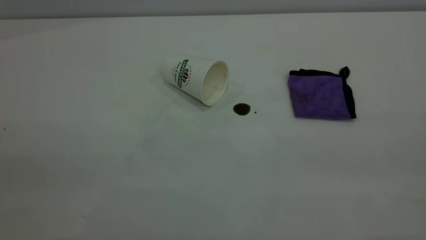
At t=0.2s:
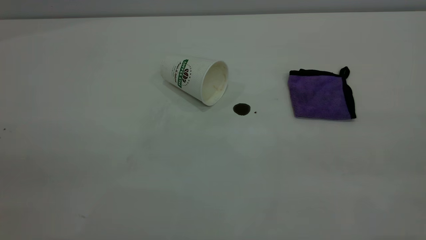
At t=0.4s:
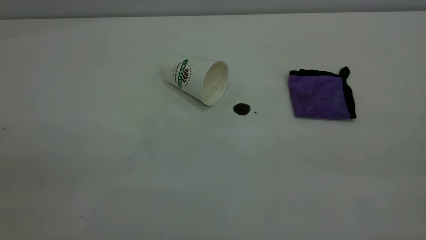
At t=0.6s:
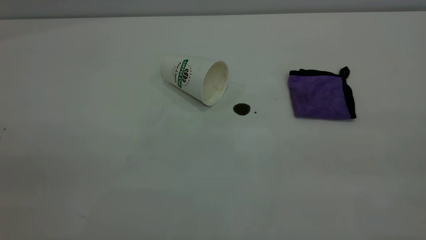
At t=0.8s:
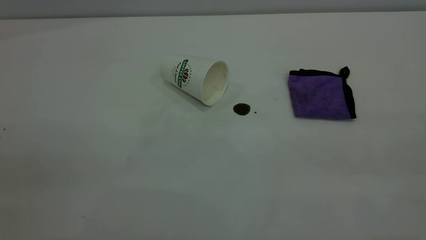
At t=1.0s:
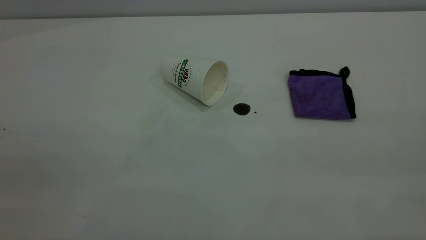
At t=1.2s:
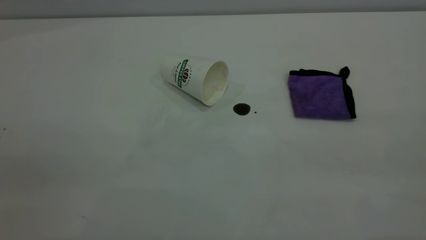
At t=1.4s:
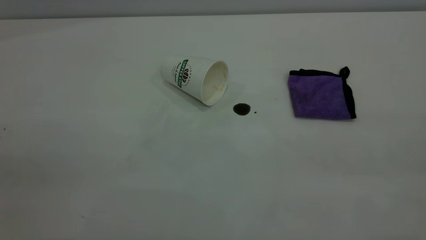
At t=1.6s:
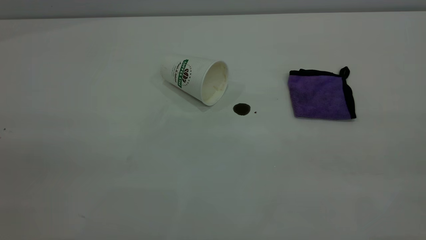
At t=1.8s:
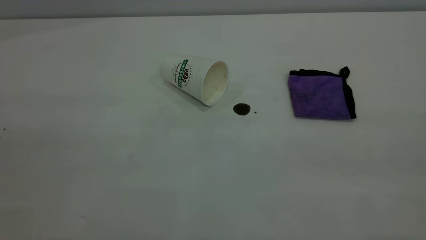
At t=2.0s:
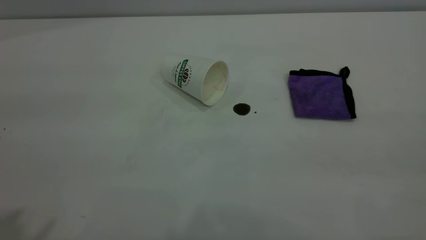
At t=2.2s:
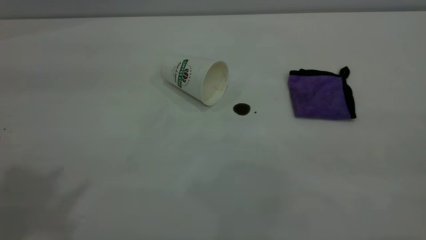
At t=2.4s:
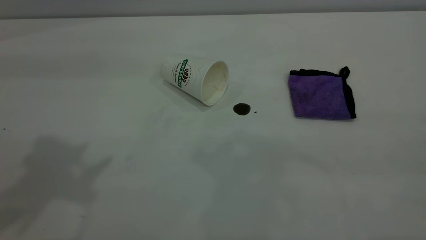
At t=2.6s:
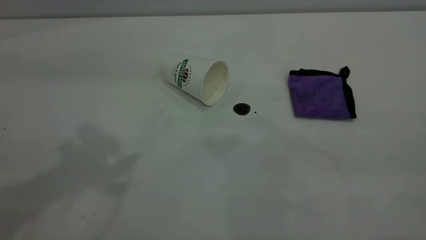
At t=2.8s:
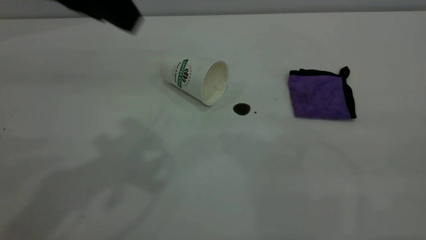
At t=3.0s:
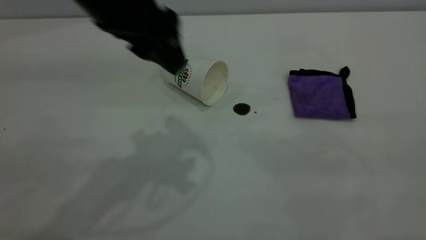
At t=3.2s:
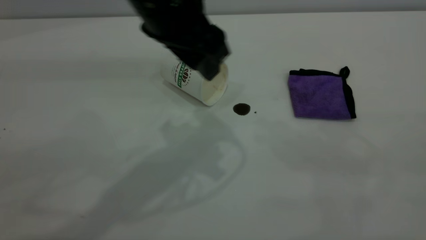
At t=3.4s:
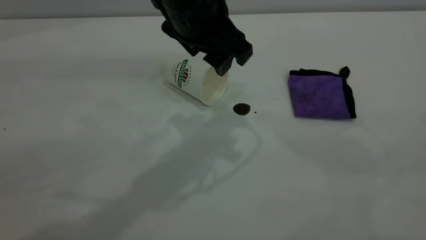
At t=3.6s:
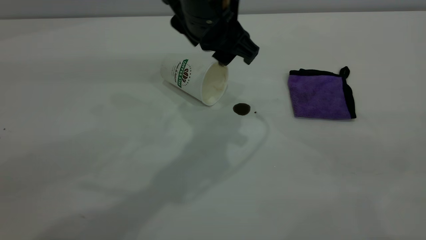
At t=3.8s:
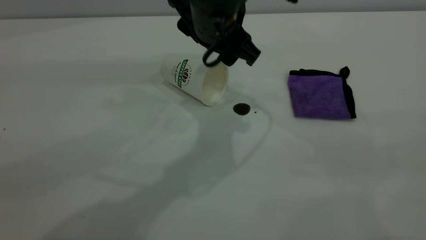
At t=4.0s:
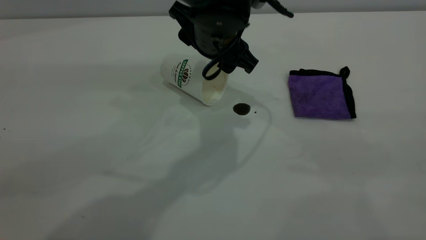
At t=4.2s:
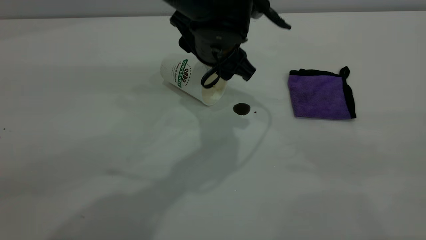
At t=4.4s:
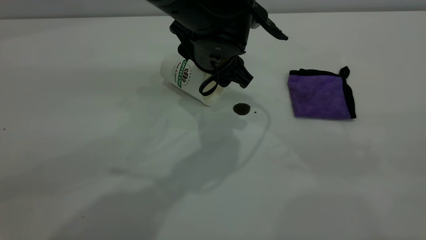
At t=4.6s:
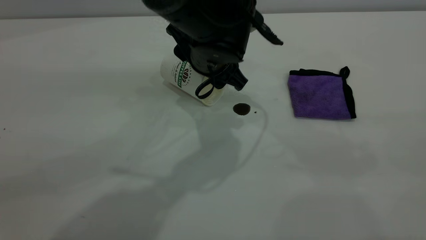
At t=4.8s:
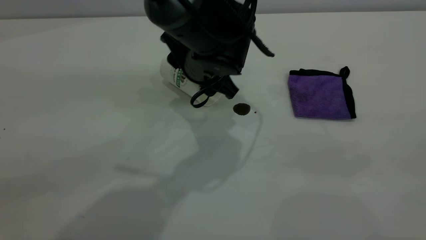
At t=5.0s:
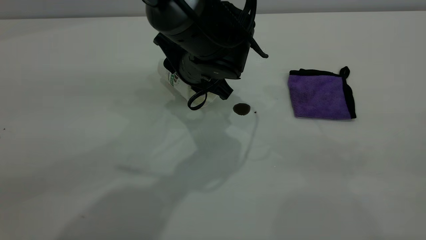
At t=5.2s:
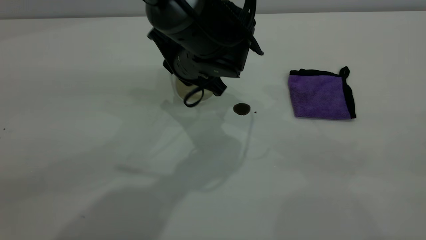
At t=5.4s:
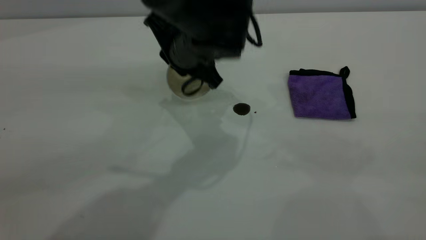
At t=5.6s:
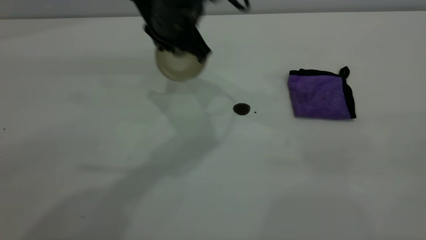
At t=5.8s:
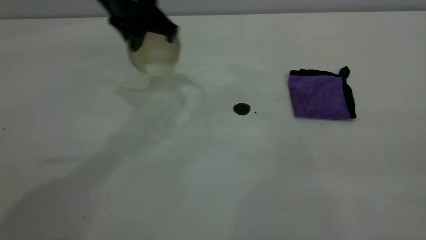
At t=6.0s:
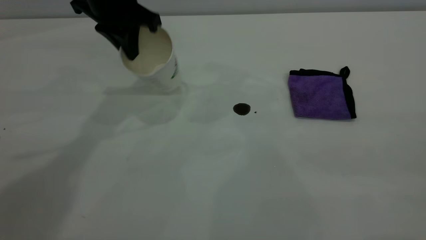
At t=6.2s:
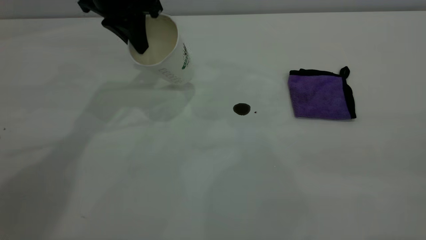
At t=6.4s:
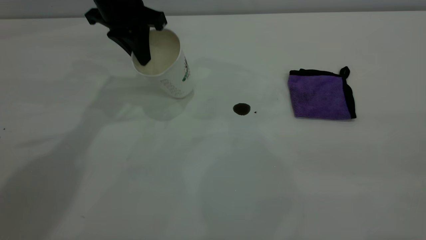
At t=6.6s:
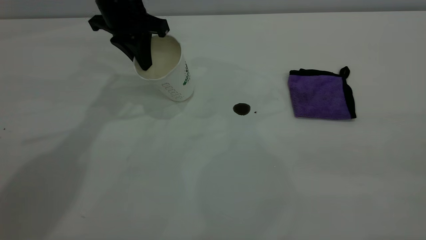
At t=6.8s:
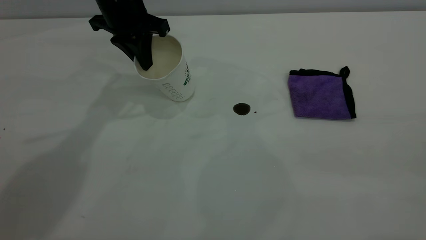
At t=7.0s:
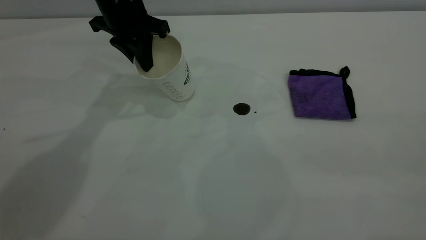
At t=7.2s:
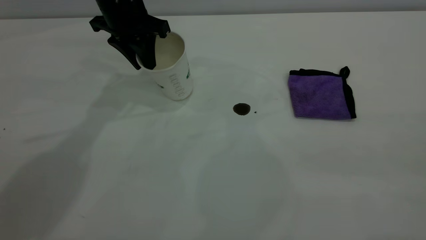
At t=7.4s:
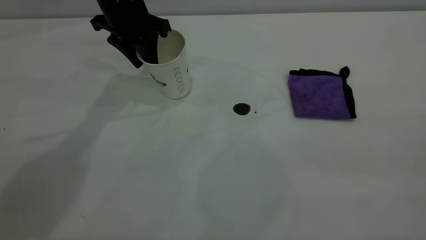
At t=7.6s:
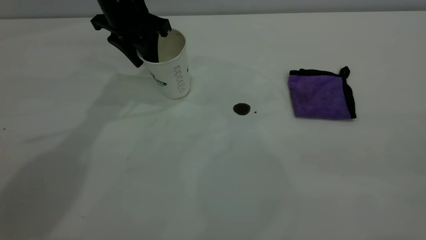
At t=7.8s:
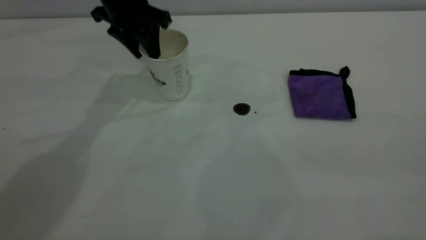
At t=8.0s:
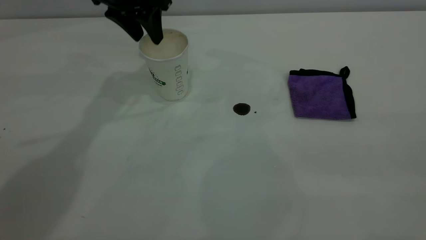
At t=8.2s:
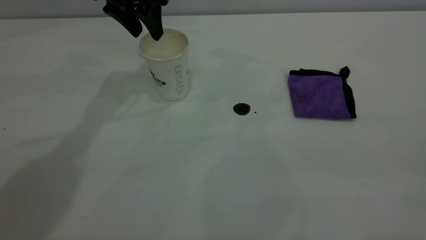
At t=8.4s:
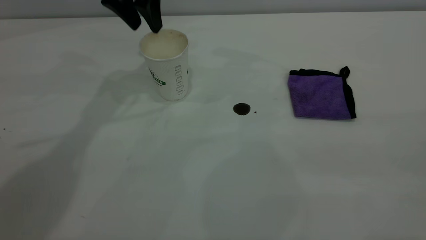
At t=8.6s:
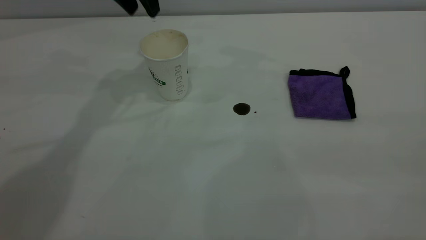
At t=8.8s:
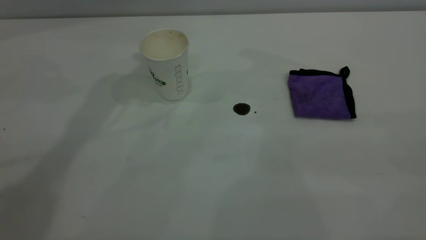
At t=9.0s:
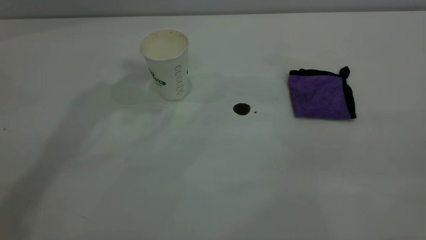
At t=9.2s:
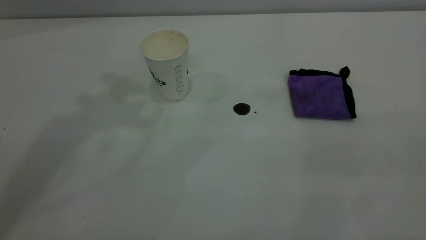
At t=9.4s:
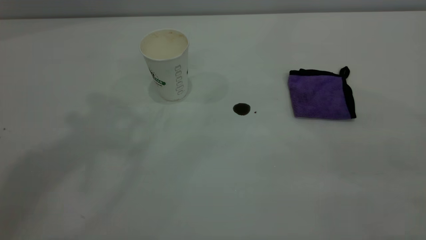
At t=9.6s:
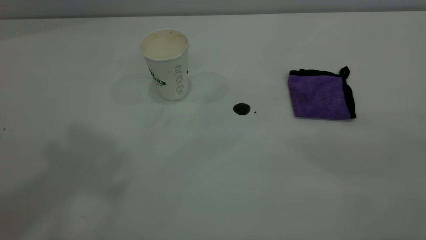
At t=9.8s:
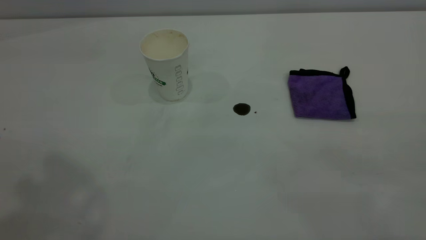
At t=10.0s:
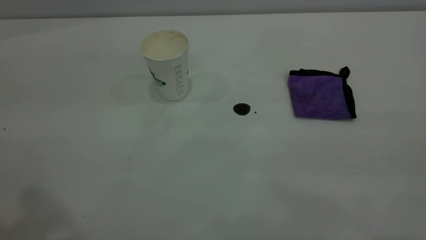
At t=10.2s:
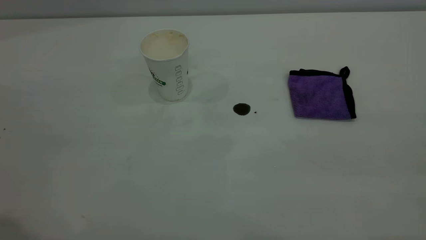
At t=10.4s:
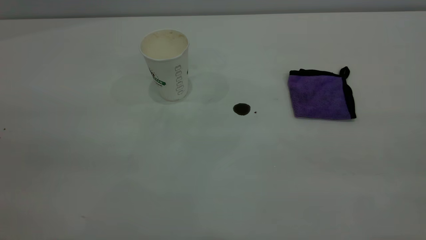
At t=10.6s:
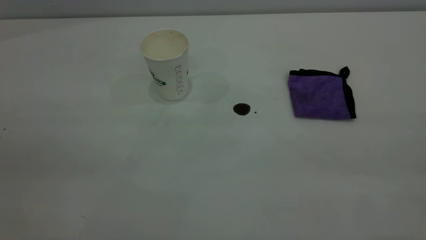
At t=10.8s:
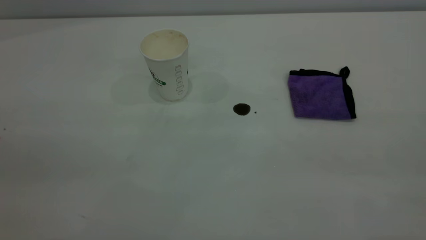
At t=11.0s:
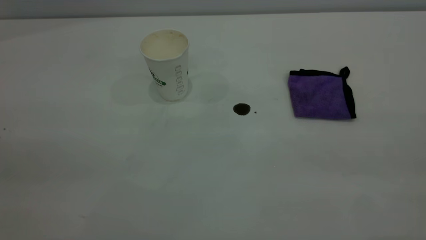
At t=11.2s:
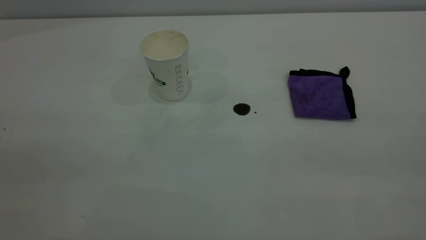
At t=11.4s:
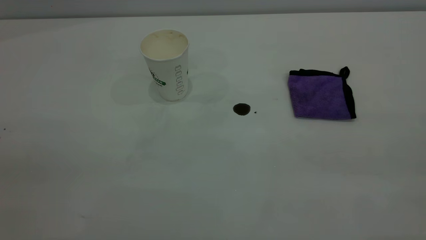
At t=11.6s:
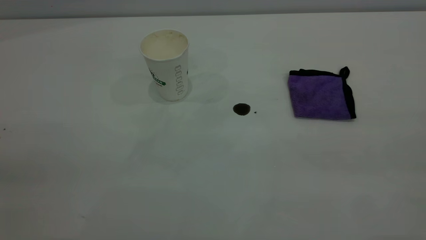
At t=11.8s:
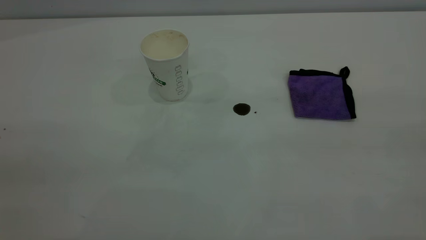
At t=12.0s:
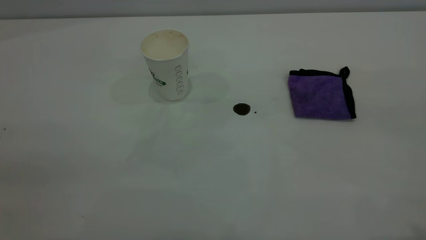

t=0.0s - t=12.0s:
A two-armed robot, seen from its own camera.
Task of the whole recording: the left gripper pick up the fallen cup and place it upright, the right gripper grasp the purple rag and wipe the coffee stain on the table, the right gripper put the purple rag back in its original position.
Step, t=0.0s - t=8.4s: Stand the paper cup upright.
t=1.6s - t=3.0s: The left gripper is displaced forward, to the right and downward by roughly 35 cm.
t=3.0s - t=4.4s: The left gripper moves downward, to the right and forward, roughly 20 cm.
t=4.4s - t=6.0s: The left gripper travels to the left, upward and forward by about 20 cm, and closes up.
t=6.0s - t=7.6s: The left gripper changes place by some 5 cm, and opens up.
t=7.6s - t=9.0s: The left gripper heads upward, covering roughly 25 cm.

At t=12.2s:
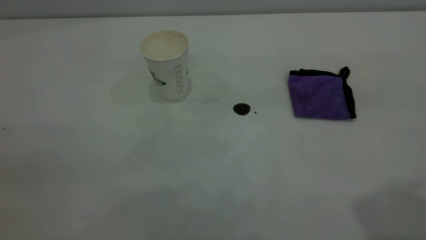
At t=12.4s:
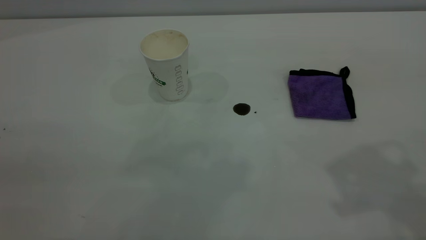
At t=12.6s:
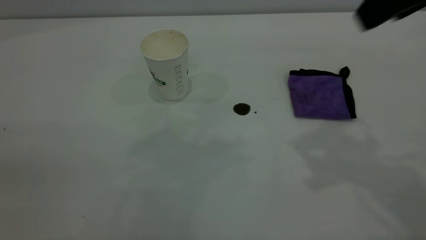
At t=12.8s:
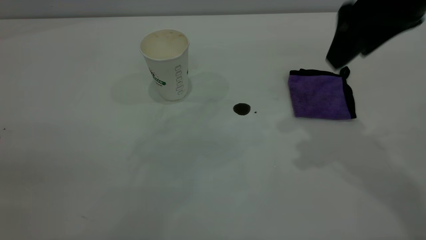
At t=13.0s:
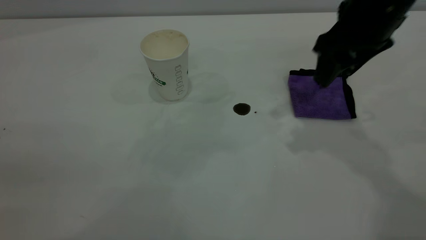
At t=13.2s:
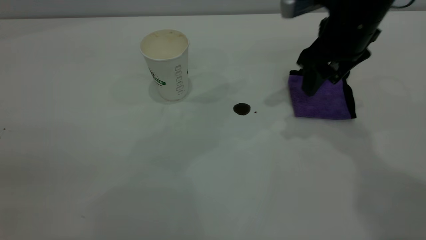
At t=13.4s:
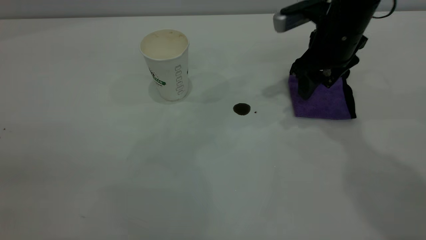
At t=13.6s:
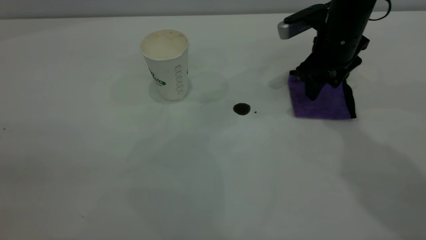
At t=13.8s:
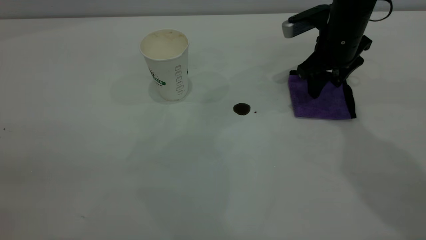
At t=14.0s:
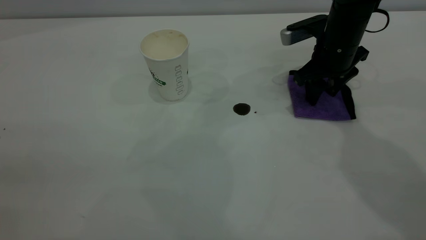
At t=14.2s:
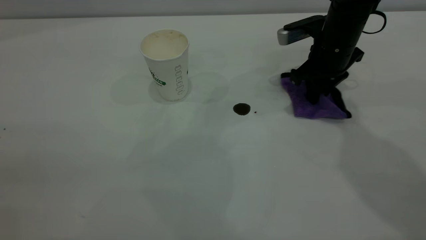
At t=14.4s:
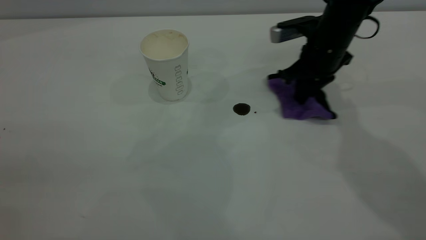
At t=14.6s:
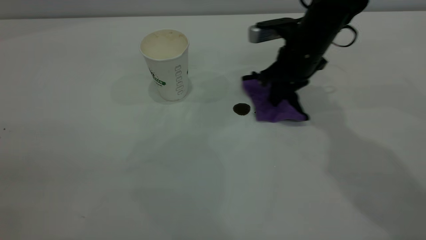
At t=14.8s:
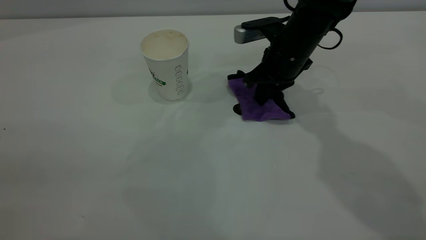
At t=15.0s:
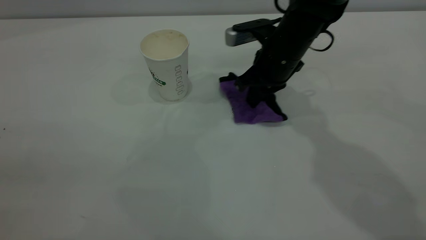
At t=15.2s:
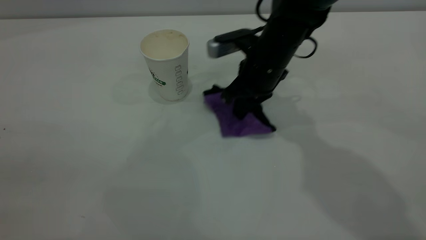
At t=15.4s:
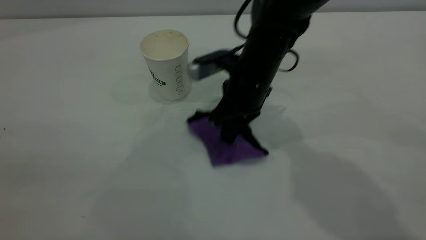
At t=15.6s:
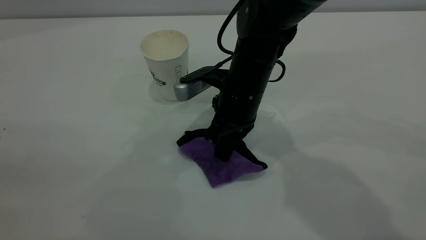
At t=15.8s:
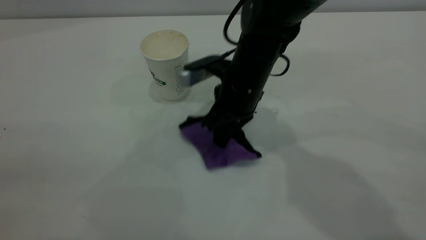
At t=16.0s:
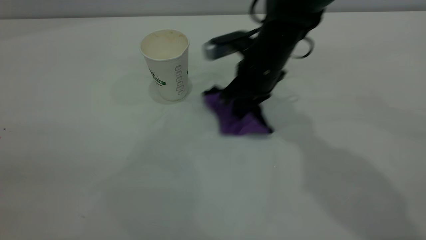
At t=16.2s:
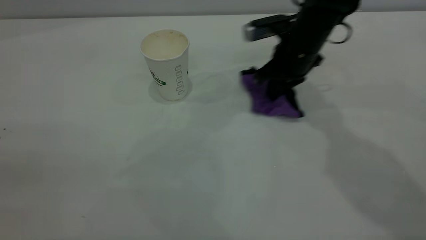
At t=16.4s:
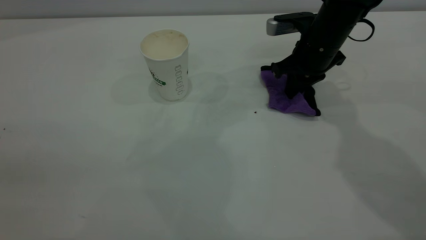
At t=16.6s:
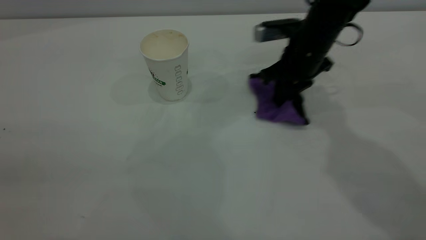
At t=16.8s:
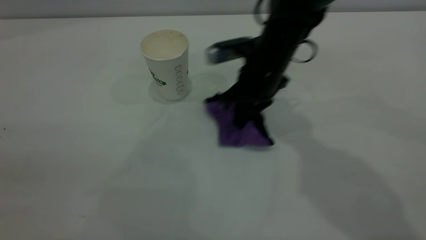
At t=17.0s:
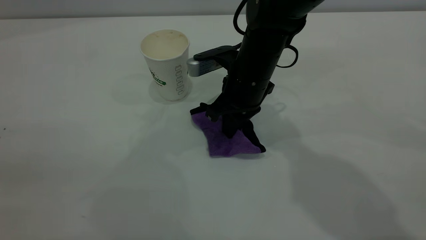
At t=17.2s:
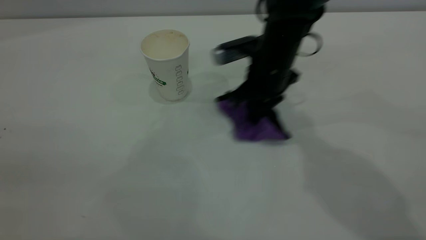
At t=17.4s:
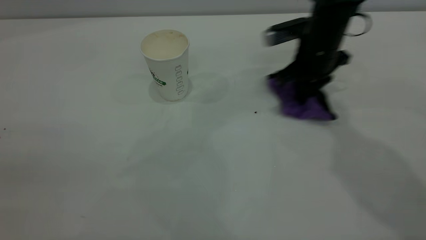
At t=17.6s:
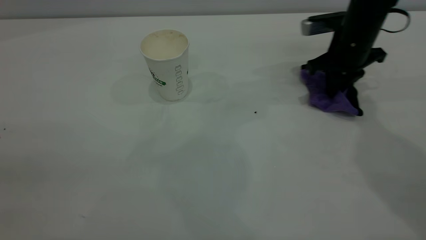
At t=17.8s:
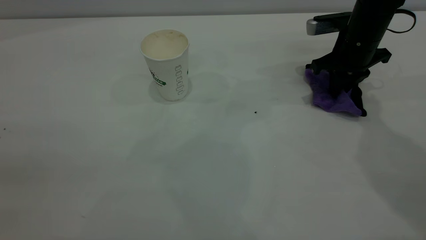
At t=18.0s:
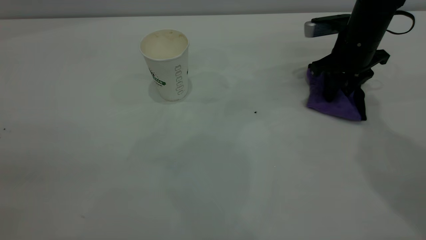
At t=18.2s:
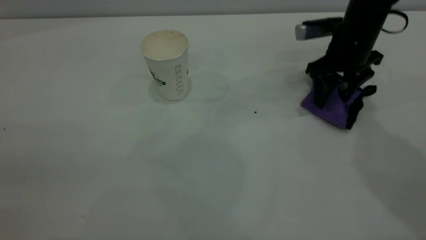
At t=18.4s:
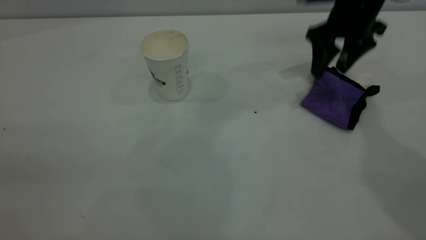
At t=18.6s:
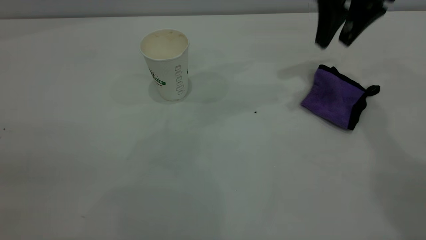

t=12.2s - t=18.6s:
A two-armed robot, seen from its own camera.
Task of the whole recording: the left gripper pick up the fallen cup and place it upright, the right gripper grasp the purple rag and wipe the coffee stain on the table, the right gripper put the purple rag back in its original position.
Step, t=12.2s - t=18.4s: Wipe the stains off the table with a rag.
t=12.2s - t=13.8s: The right gripper shifts roughly 40 cm downward and forward.
t=13.8s - t=15.4s: The right gripper heads to the left and backward, covering some 15 cm, and closes its fingers.
t=15.4s - t=17.0s: The right gripper moves some 10 cm to the right and comes back.
t=17.0s - t=18.6s: The right gripper travels upward and to the right by about 20 cm, and opens its fingers.
